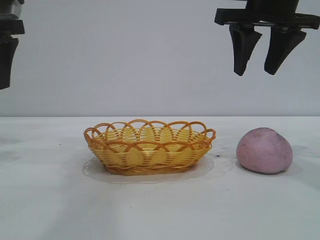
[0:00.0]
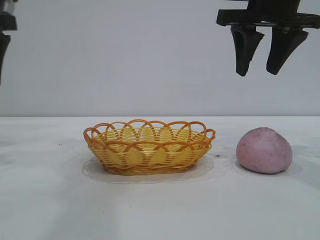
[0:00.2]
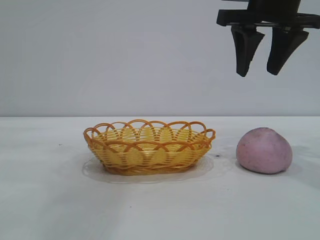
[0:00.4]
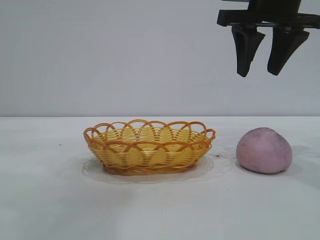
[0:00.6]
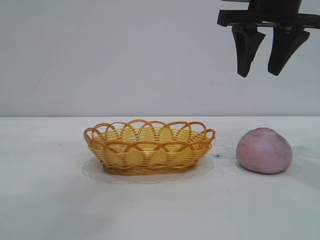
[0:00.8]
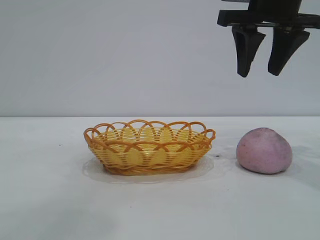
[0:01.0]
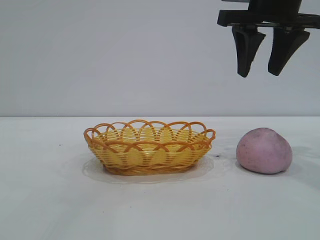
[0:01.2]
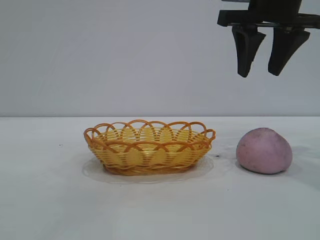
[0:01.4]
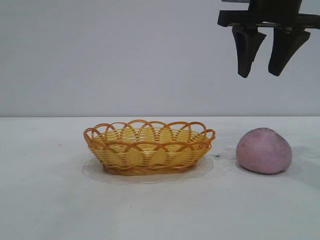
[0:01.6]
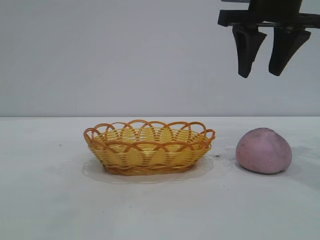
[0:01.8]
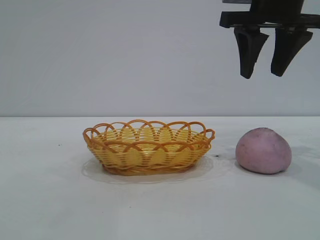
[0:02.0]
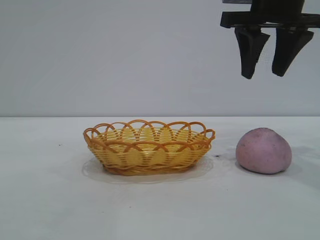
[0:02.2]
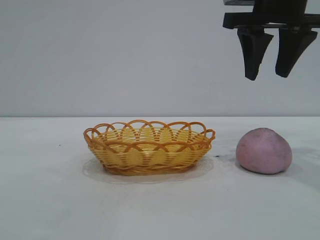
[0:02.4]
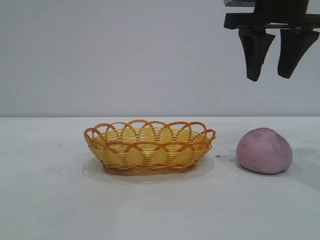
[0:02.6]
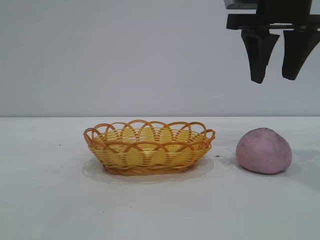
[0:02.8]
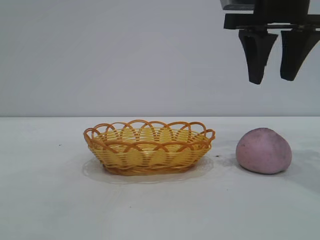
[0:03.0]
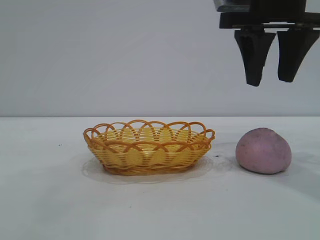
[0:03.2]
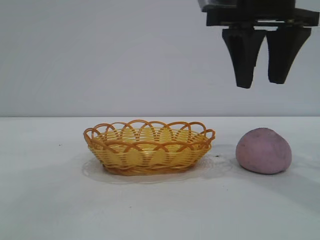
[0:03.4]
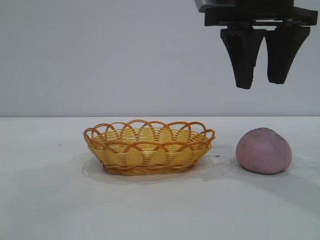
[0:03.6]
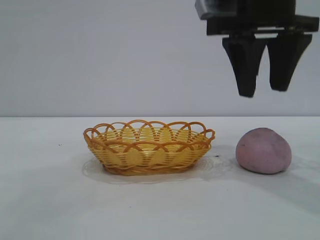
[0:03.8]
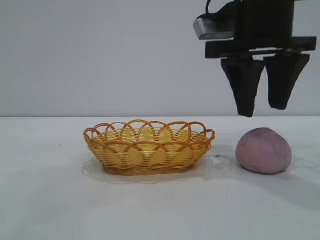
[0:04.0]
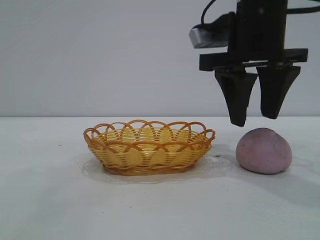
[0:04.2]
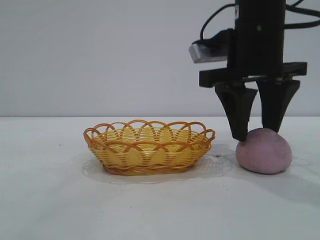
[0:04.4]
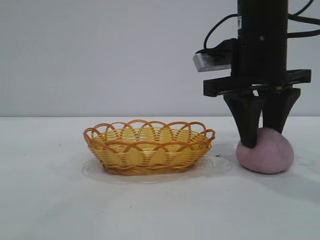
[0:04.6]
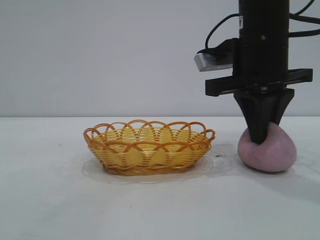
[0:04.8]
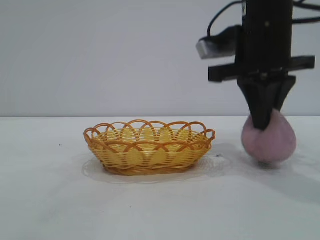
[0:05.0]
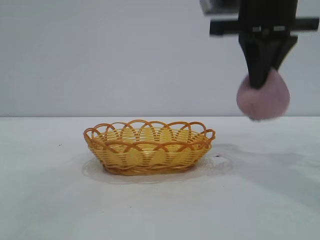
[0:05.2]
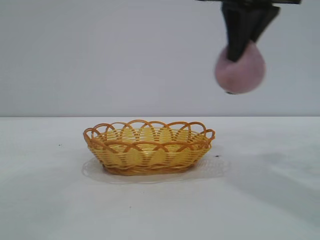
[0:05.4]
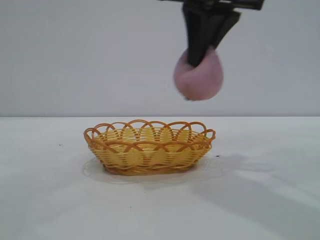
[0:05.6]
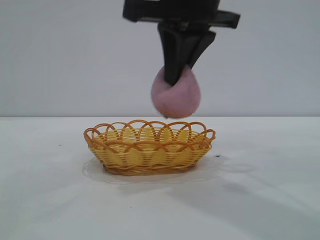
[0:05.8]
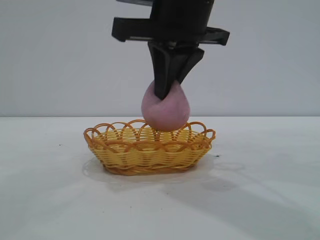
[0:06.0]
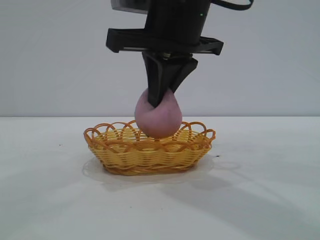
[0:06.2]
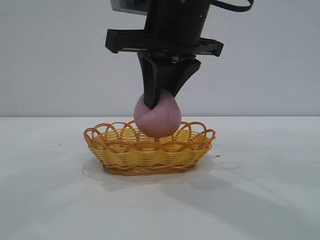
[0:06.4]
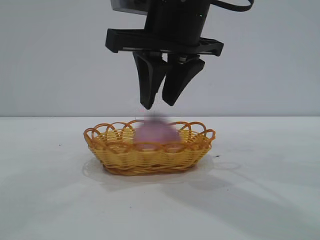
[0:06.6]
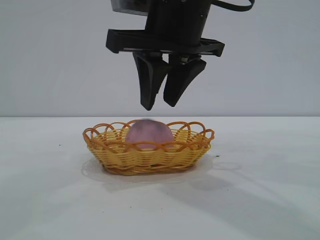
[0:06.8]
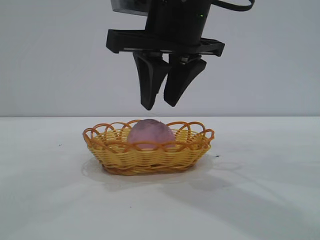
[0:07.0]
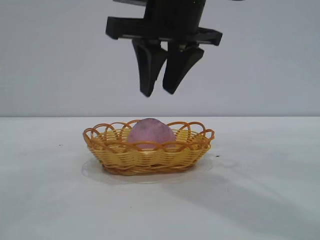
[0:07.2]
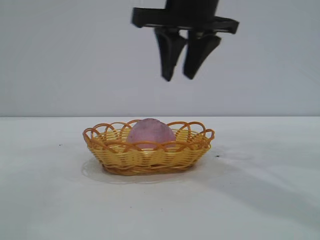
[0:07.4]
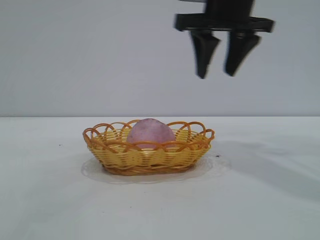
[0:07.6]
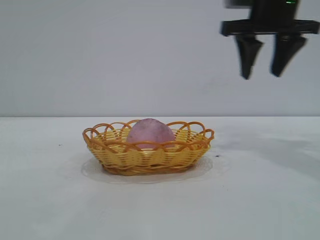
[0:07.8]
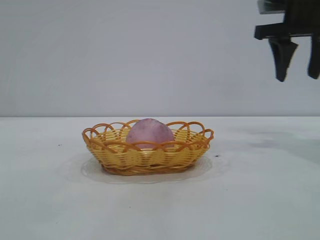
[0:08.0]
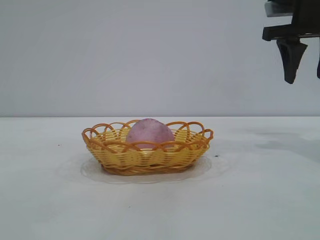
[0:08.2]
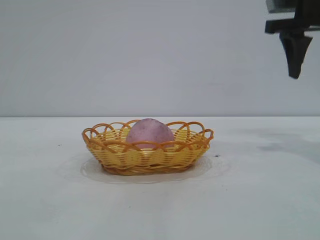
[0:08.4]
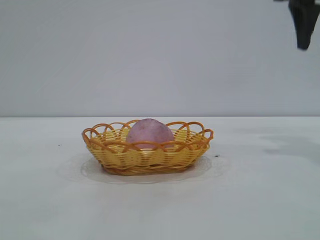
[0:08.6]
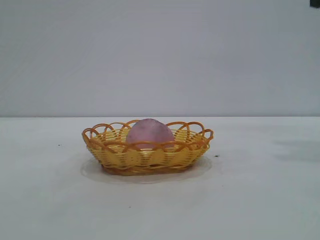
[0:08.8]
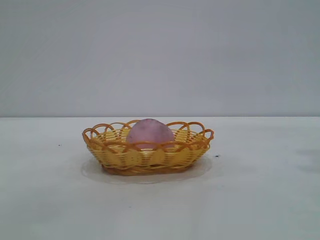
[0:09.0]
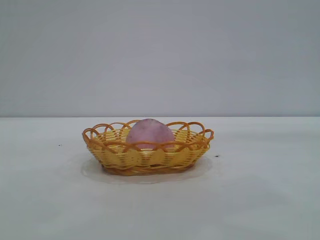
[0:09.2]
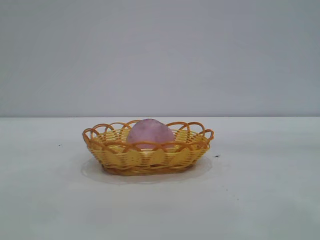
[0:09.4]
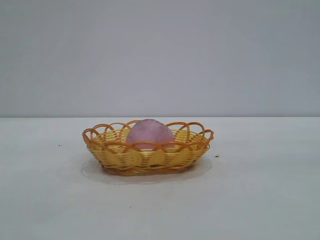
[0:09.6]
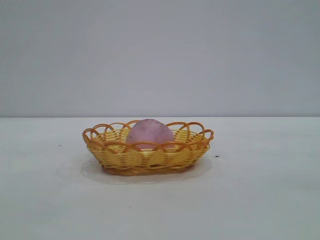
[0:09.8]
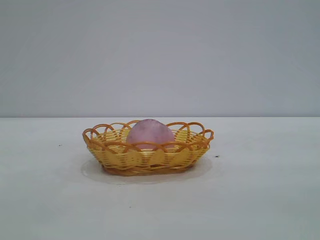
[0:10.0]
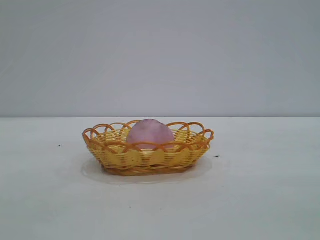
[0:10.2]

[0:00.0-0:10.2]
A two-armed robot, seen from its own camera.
Task of the whole recording: pick up the peach and put it into the basket.
Step, 0:00.0 to 0:05.2: Pick up the peach.
Step, 0:05.4 to 0:07.4: place the peach into the basket.
